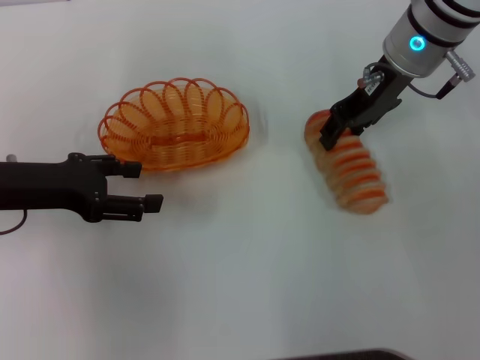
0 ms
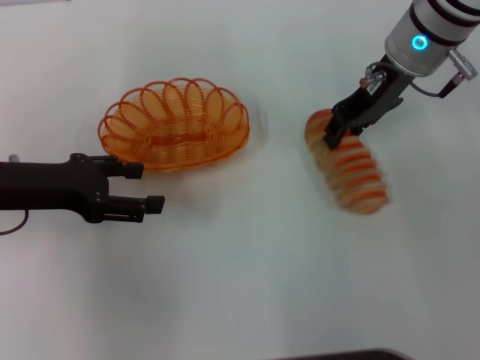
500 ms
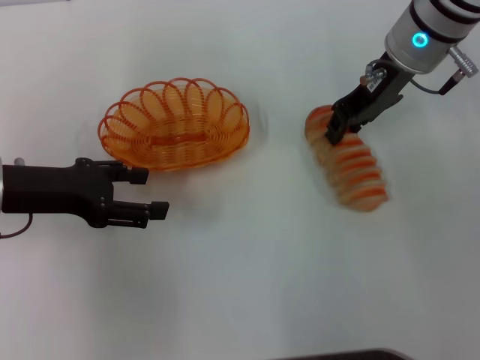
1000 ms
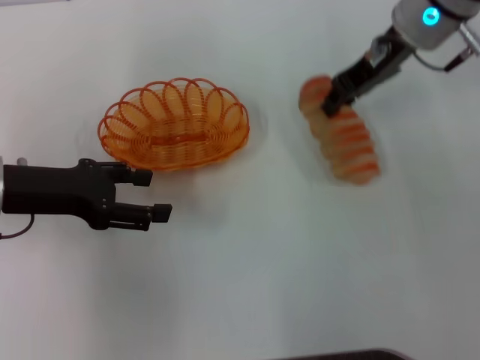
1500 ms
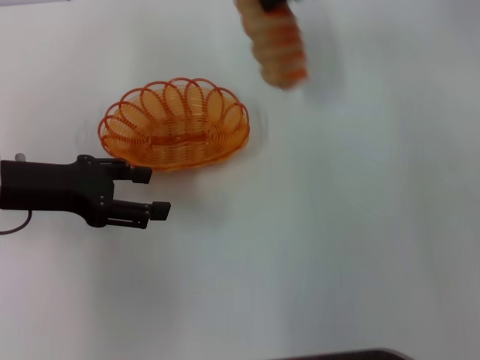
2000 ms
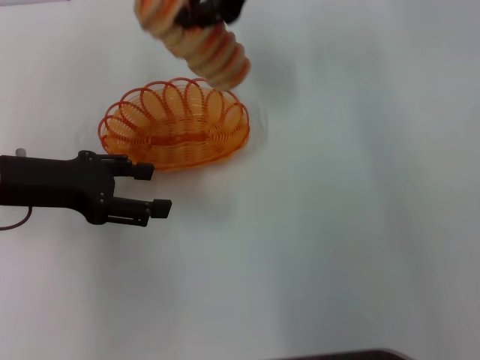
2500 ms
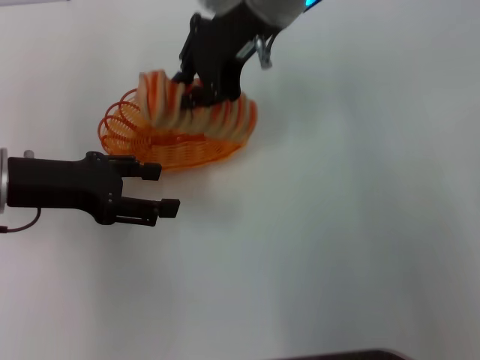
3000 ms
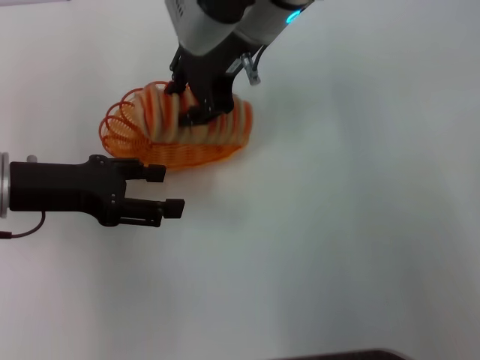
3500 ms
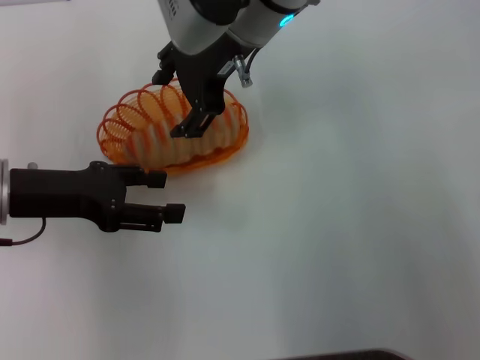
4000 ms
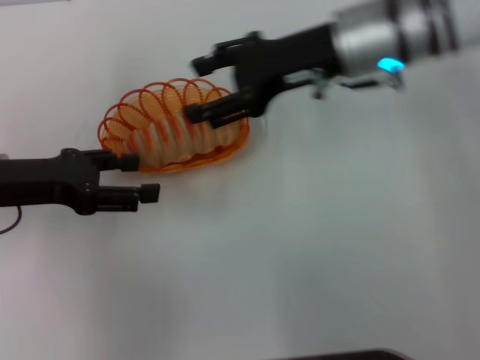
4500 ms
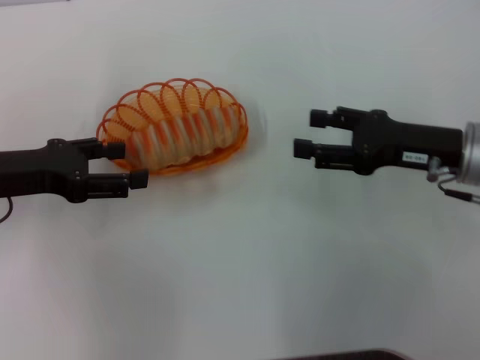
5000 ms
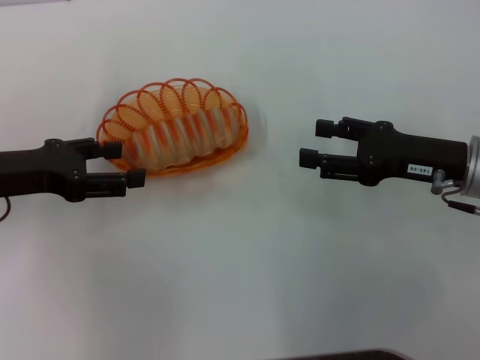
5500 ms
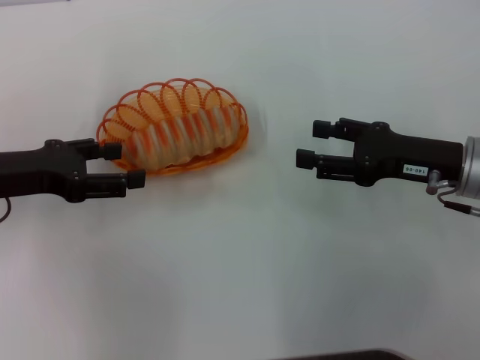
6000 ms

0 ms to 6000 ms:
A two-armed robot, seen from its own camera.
Step, 1500 ms to 4500 ms: Place the long bread into the basket with the right gripper.
0 ms to 2000 ms: The right gripper moves upward, about 10 cm, and closes its fingers.
2000 ms to 4000 ms: The right gripper heads to the left, covering about 15 cm, and opens its fingers.
4000 ms to 6000 ms: The right gripper moves to the right, downward and backward, some 30 cm.

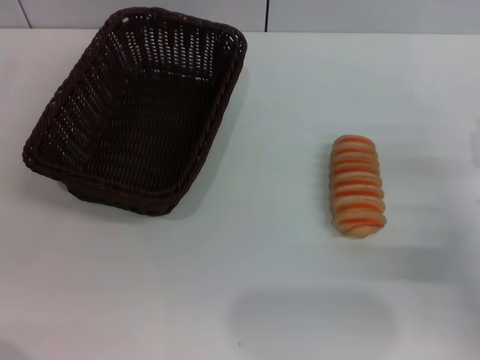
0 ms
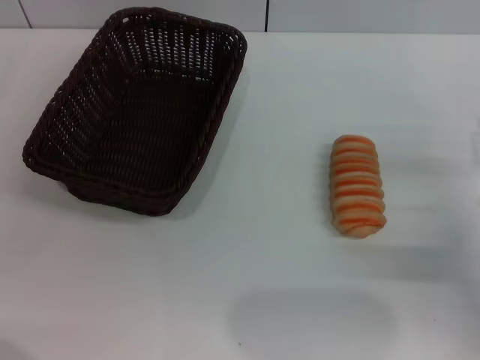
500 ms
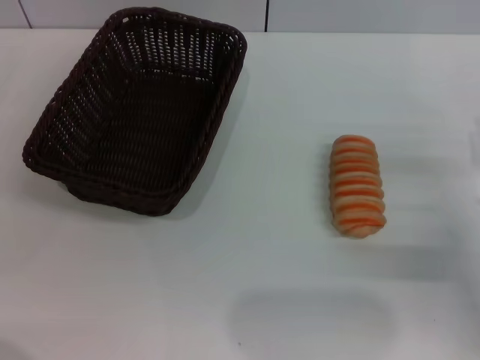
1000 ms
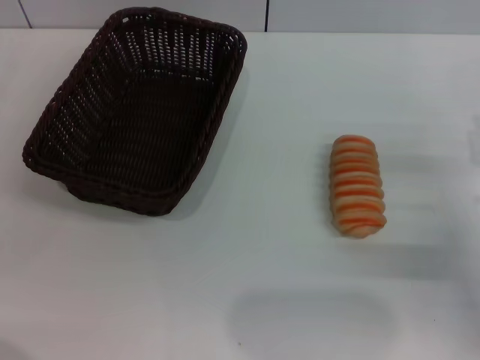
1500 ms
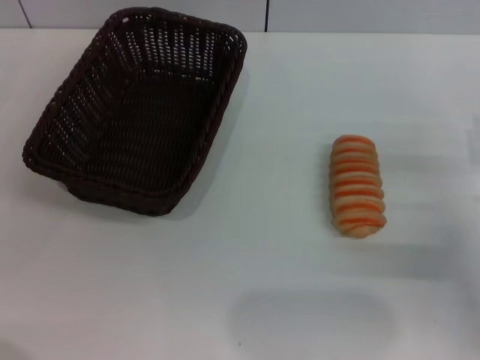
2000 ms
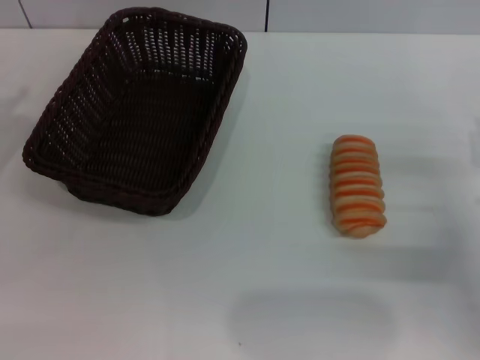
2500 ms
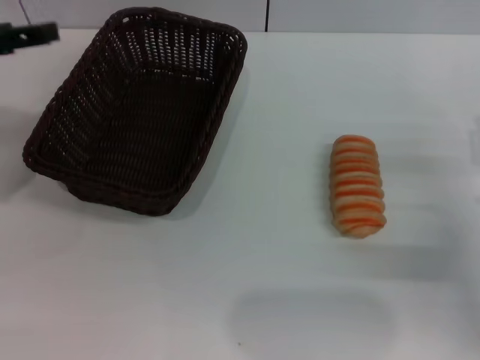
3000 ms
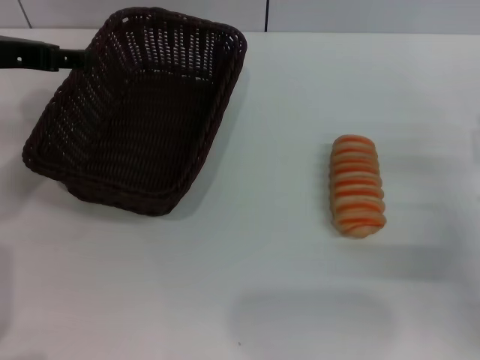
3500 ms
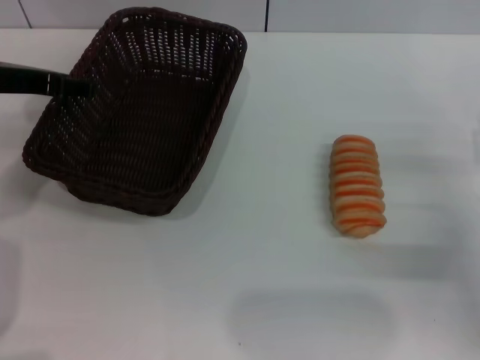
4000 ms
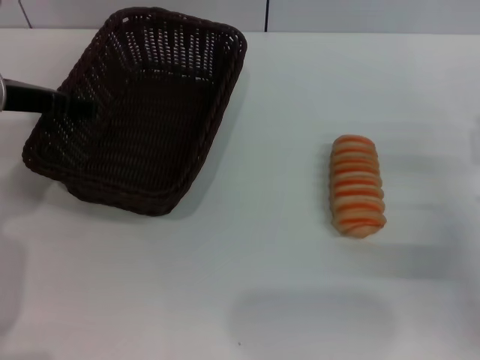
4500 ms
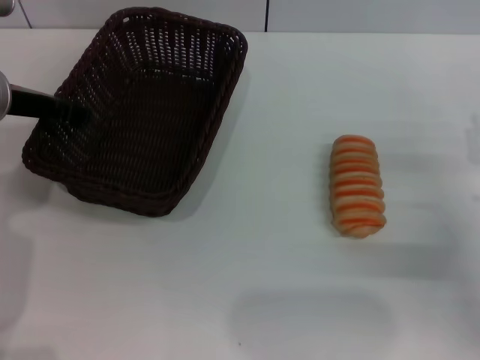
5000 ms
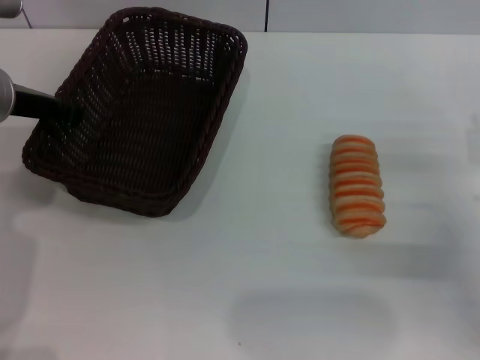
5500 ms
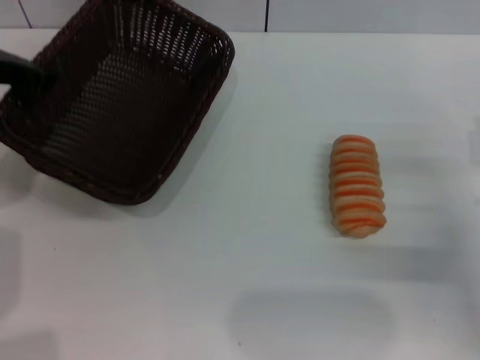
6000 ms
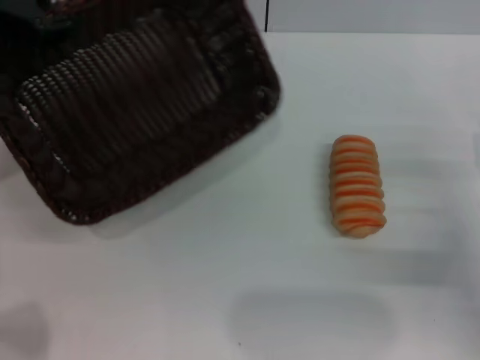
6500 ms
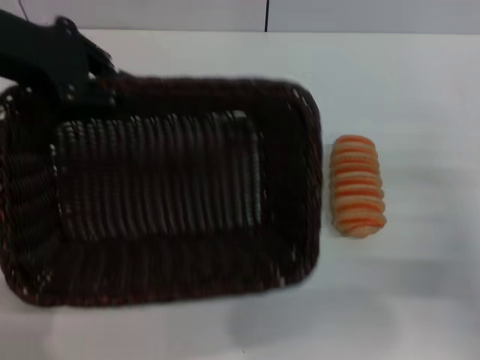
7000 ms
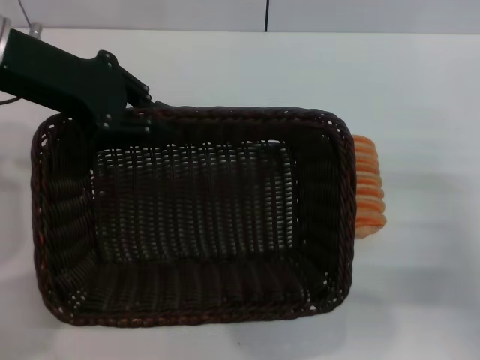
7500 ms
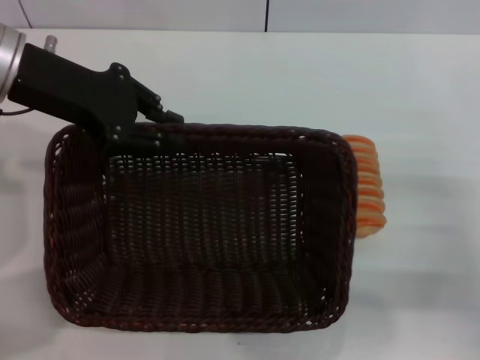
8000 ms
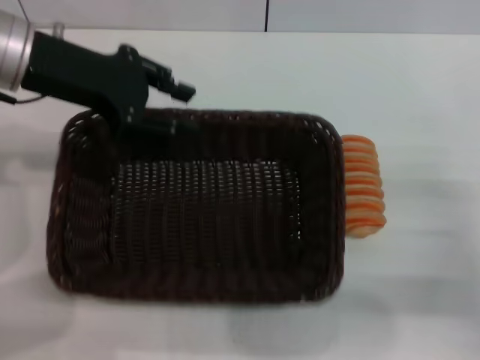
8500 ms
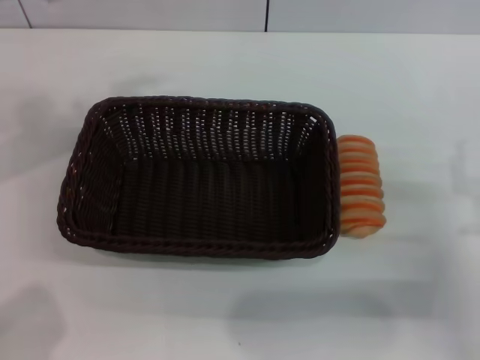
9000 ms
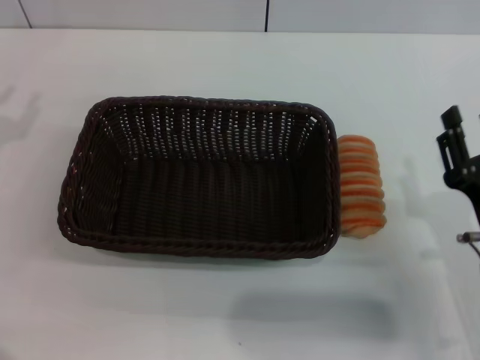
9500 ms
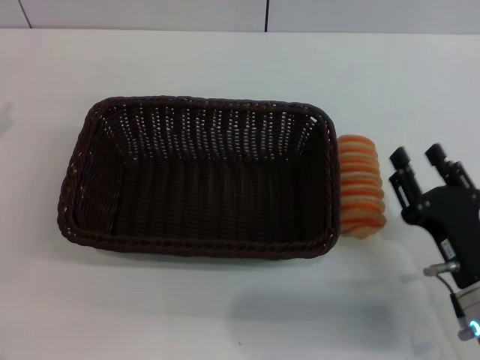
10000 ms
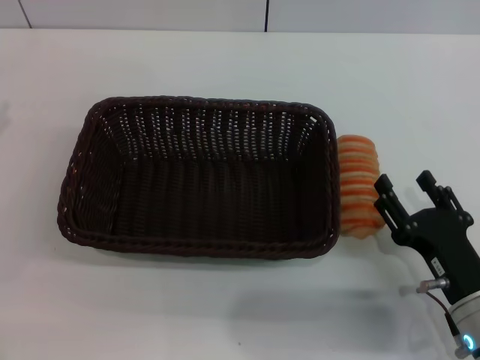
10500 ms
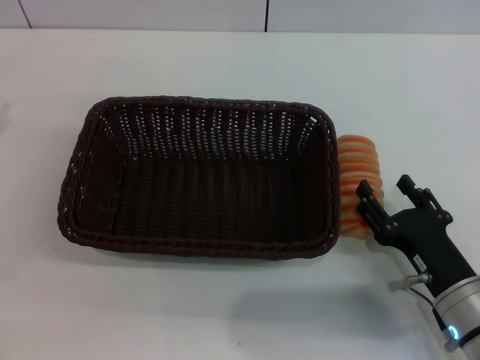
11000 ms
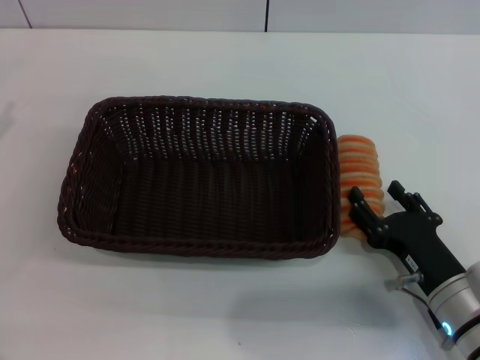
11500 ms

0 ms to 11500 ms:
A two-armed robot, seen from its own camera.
Step, 0 ms to 6000 ms: Pick up the dark basket with the left gripper.
Step, 6500 ms to 8500 ms: Place the dark basket in the center of view with the left gripper.
0 ms to 2000 ms: Both grippers stay about where they are.
2000 ms to 4000 ms: The left gripper heads upward, forward and to the right, covering about 20 cm.
4000 ms to 6000 ms: The left gripper closes.
6000 ms to 7500 ms: The left gripper ends up some 5 cm from where it was.
7500 ms to 9500 ms: The right gripper is displaced to the left by roughly 5 cm. Meanwhile the left gripper is displaced to the left, downward and backward by about 20 cm, and opens its fingers.
9500 ms to 11500 ms: The right gripper ends up about 5 cm from where it was, and opens its fingers.

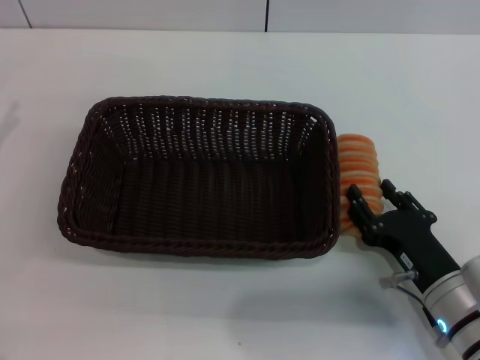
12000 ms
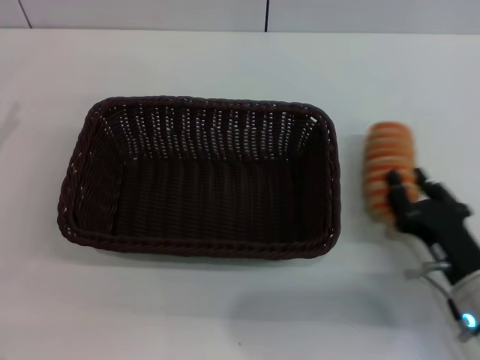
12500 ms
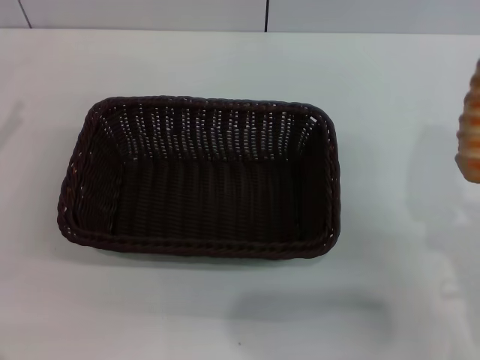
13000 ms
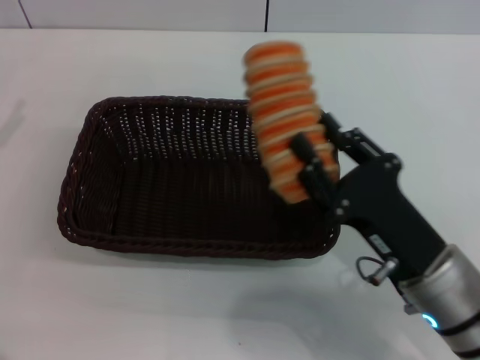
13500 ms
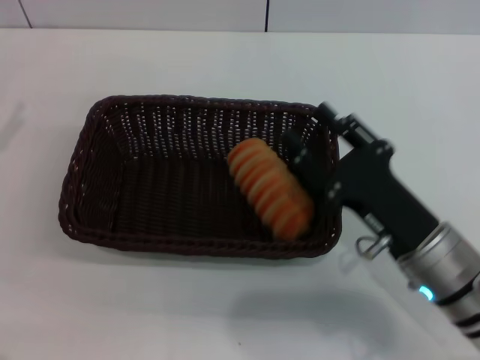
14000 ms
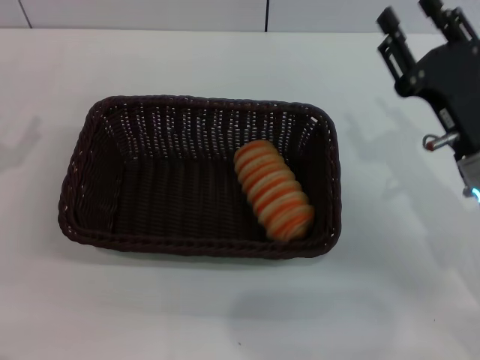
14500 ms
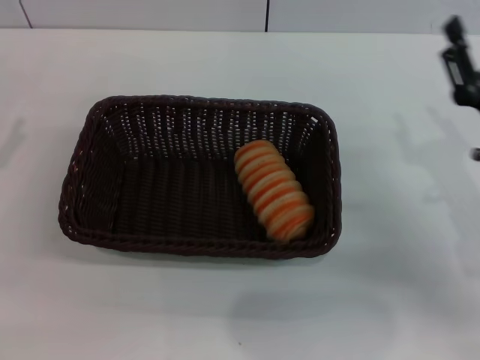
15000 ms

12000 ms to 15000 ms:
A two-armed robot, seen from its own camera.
Step, 13000 ms to 13500 ms: Place the long bread into the dark basket with the right gripper.
12000 ms to 13500 ms: The right gripper shifts some 5 cm upward, and closes.
13500 ms to 15000 ms: The left gripper shifts by approximately 5 cm. The right gripper shifts about 10 cm to the right and forward, and opens up.

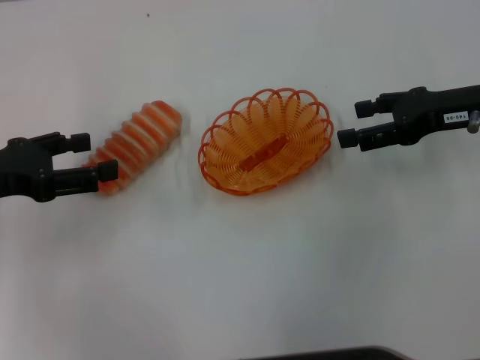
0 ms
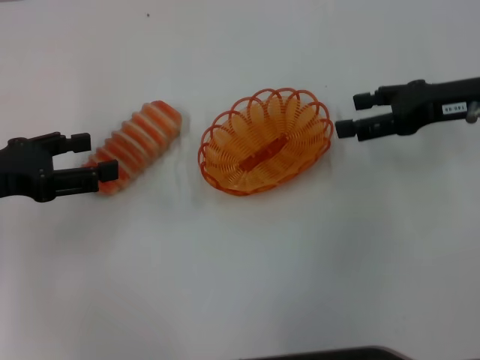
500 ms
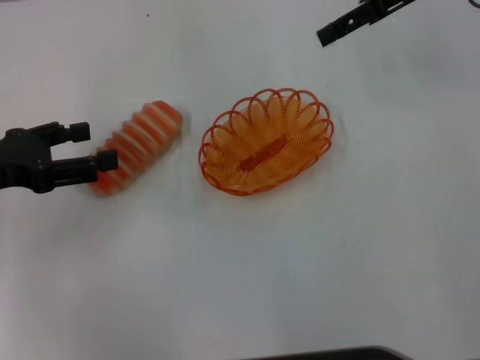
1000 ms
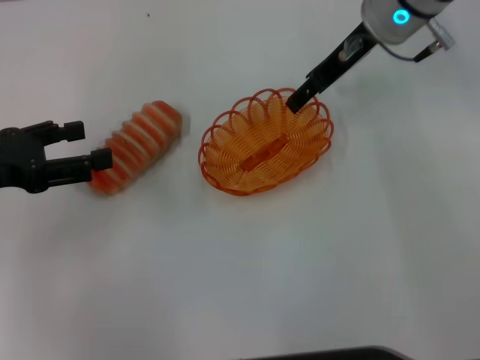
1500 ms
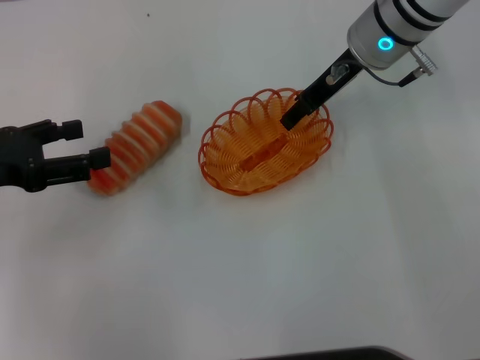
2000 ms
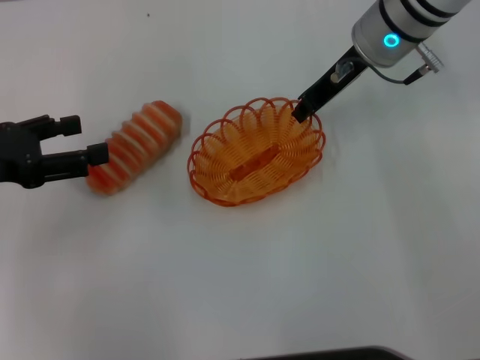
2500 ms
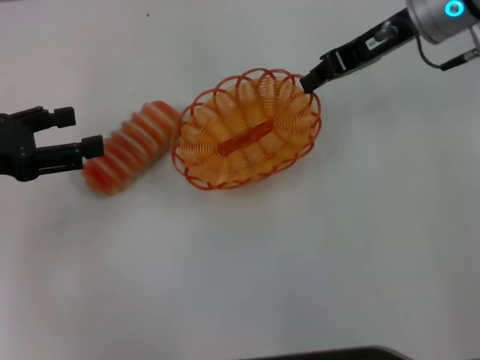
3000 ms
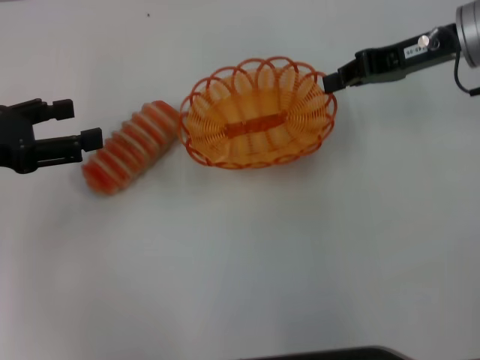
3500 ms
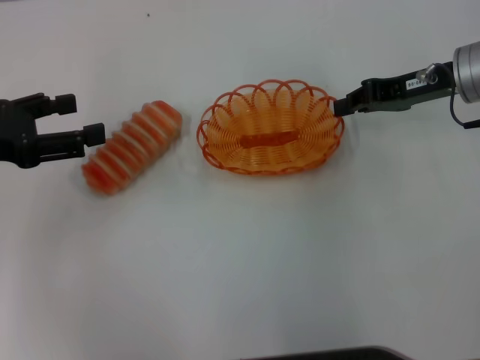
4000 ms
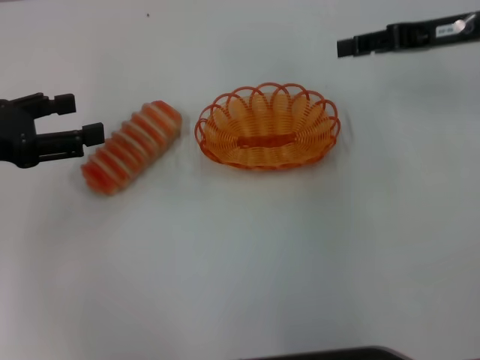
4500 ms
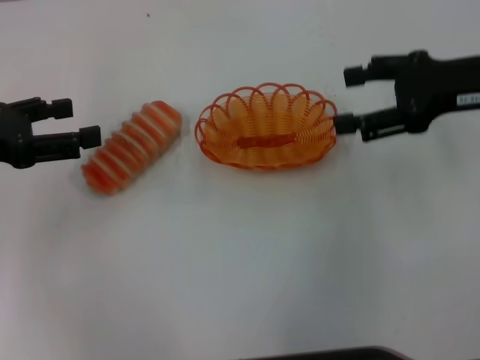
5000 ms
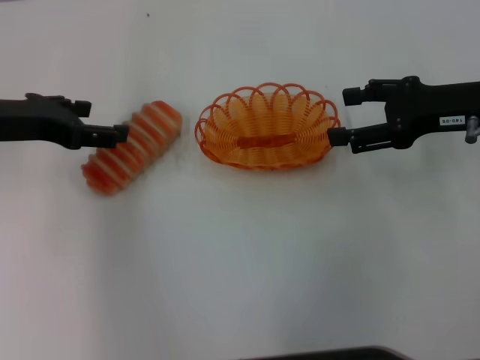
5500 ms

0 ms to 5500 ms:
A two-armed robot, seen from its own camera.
Step, 0 ms to 3000 ms: Pick up the basket with the right gripper.
Step, 3500 ms to 4500 ms: Place the basket in the center of view with the right gripper.
0 ms to 2000 ms: The right gripper goes roughly 15 cm to the left and forward.
2000 ms to 3500 ms: The right gripper heads to the right, covering approximately 10 cm, and closes its fingers.
3500 ms to 5500 ms: The right gripper heads backward, covering some 5 cm, and opens its fingers, while the left gripper travels to the right by roughly 5 cm.
